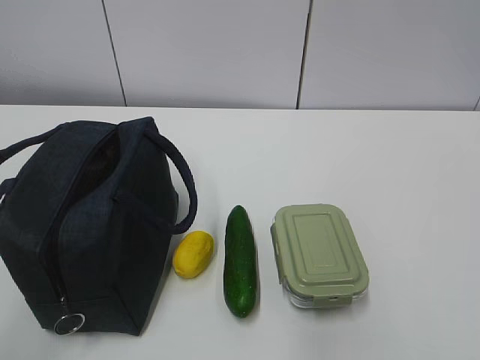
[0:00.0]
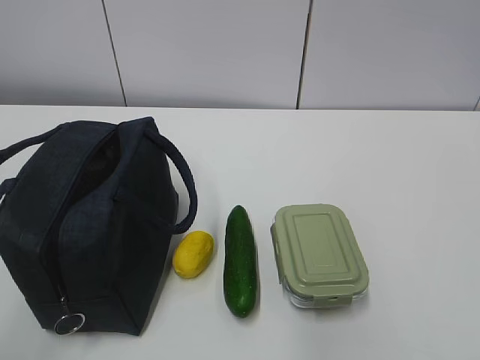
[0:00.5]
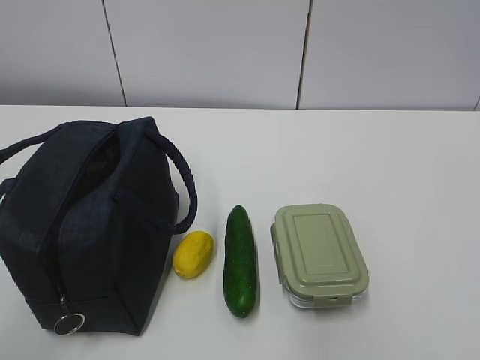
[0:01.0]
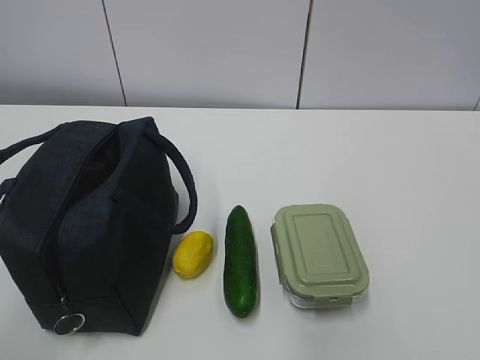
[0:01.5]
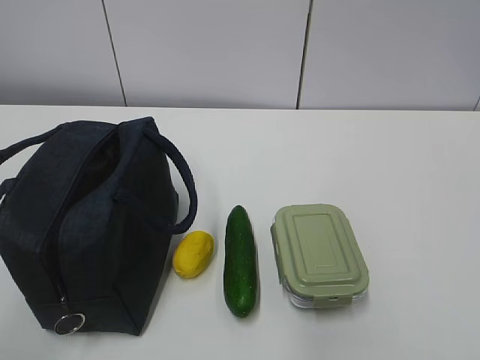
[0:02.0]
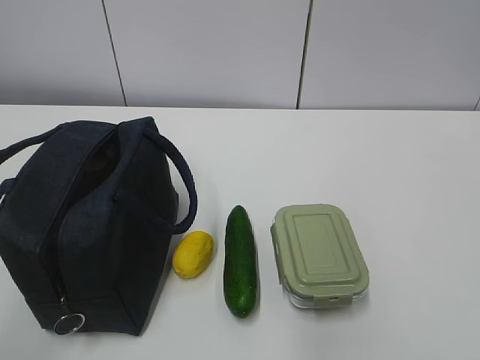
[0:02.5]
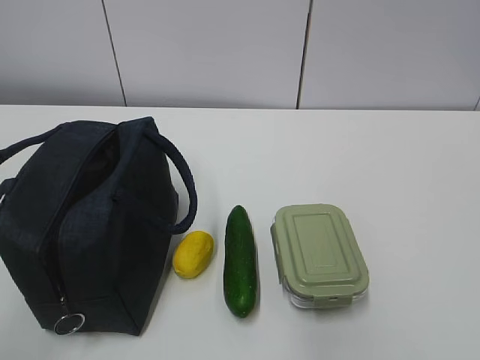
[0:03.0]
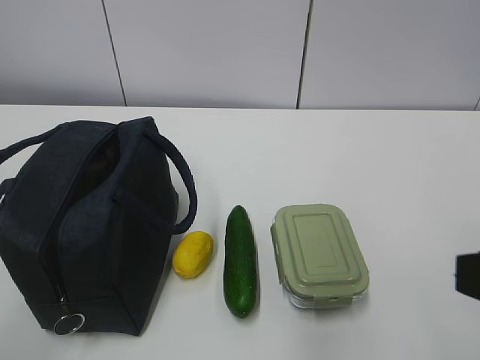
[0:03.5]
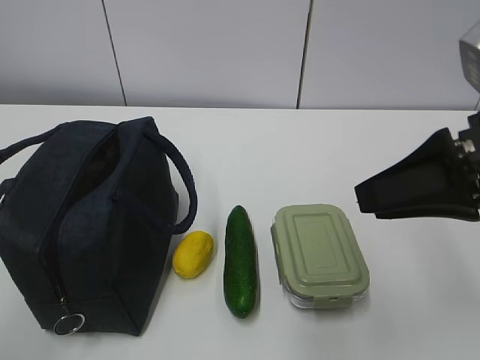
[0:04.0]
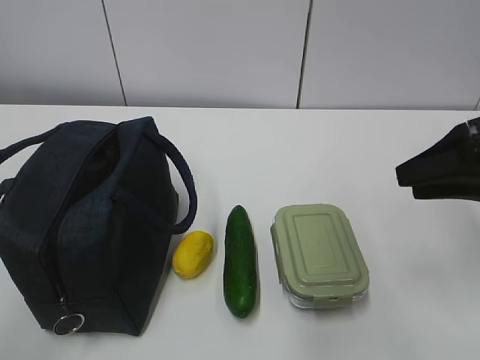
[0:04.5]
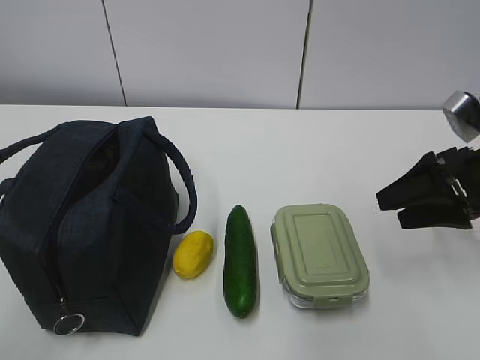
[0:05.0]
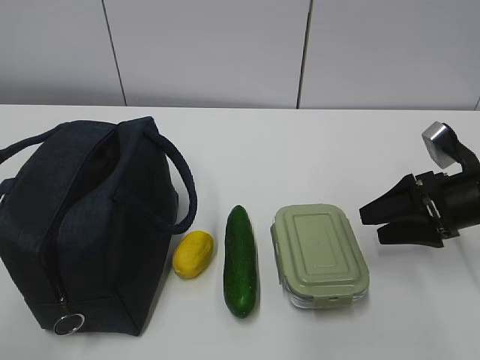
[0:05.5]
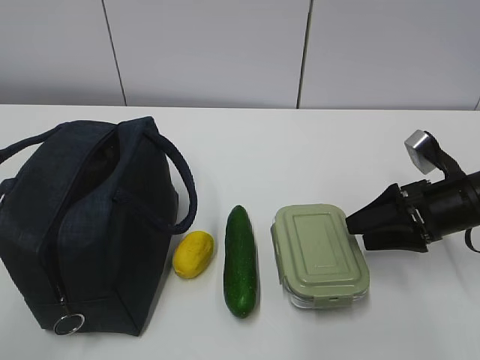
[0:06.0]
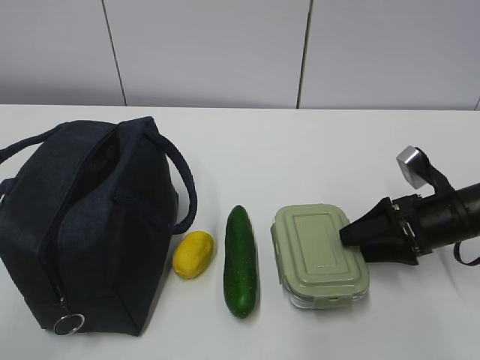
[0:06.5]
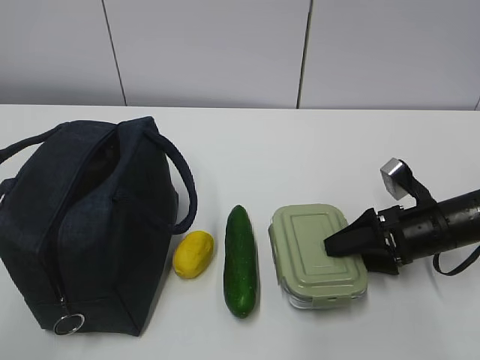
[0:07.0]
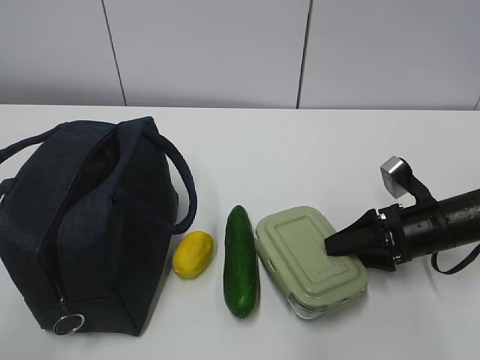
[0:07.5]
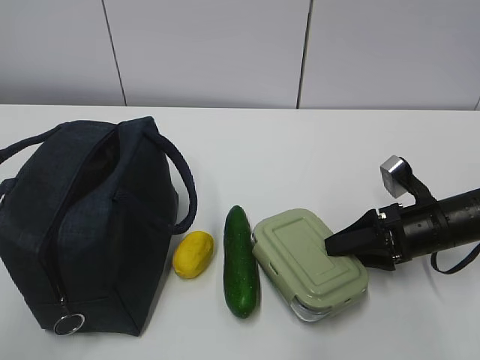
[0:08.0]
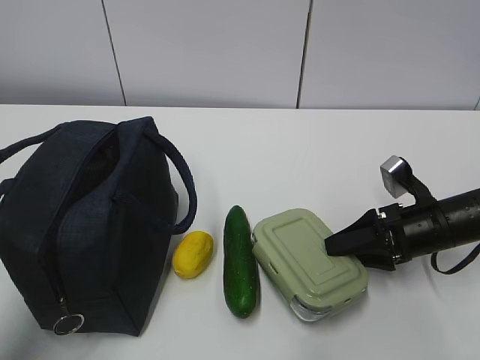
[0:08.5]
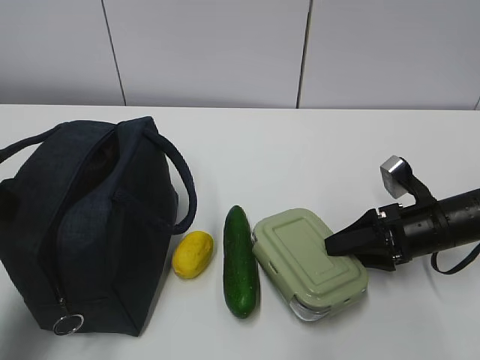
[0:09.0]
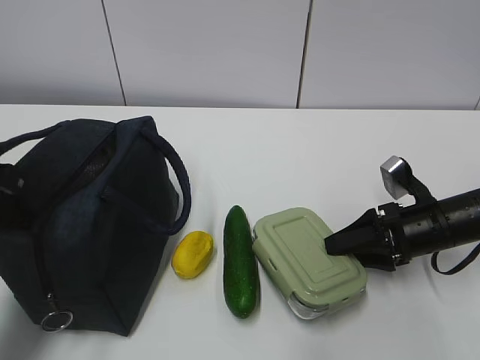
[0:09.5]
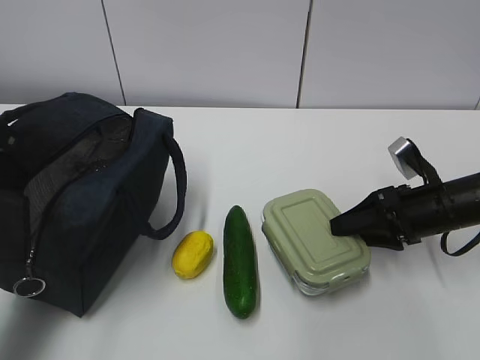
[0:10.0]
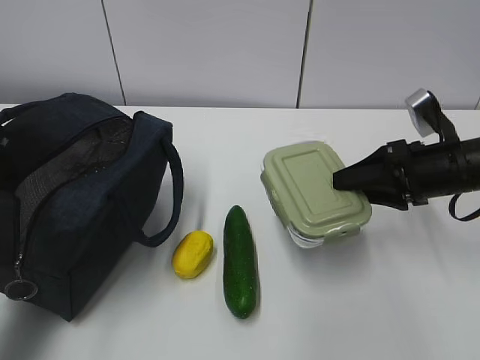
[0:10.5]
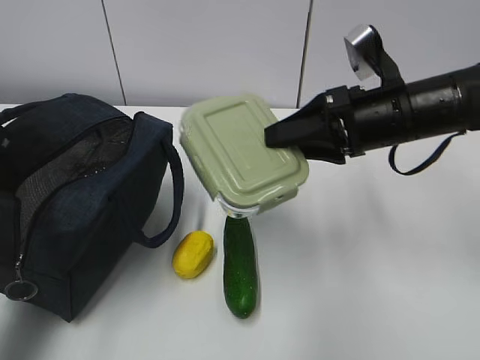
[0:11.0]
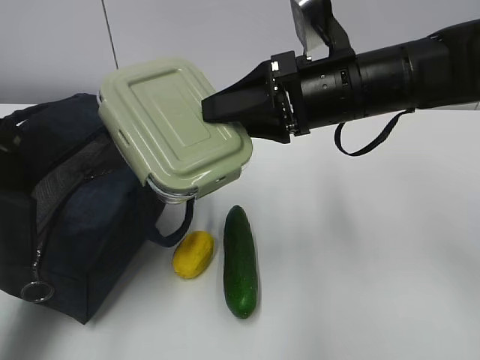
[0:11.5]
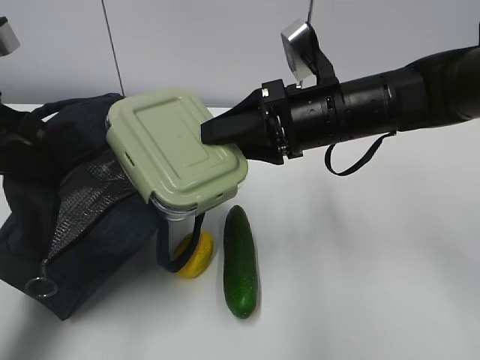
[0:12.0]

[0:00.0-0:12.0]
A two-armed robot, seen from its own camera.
Step, 0:00.0 to 0:08.0: Grab the lunch box with your right hand.
Step, 0:08.5 to 0:09.5: Grab the lunch bag with your left hand.
0:02.0 to 0:04.0: The right gripper moves forward, some 25 cm.
0:04.0 to 0:06.0: The right gripper is displaced downward, forward and to the right by about 20 cm, and opens up.
0:06.0 to 0:08.0: The right gripper moves some 5 cm.
0:08.0 to 0:10.0: The left gripper moves forward, about 25 cm, and closes up.
0:10.0 to 0:12.0: The right gripper heads to the left and upward, covering about 20 cm.

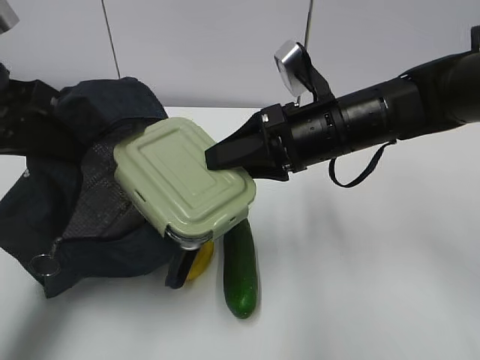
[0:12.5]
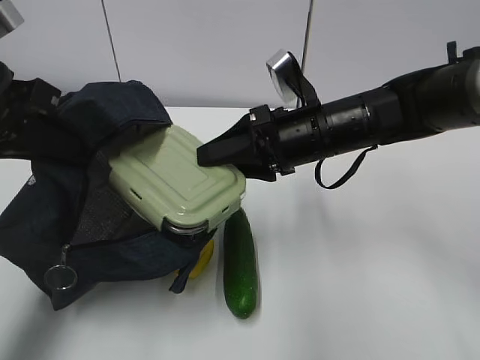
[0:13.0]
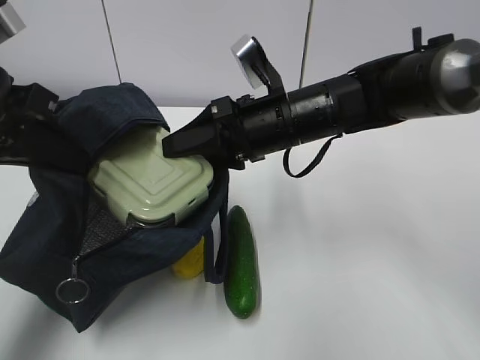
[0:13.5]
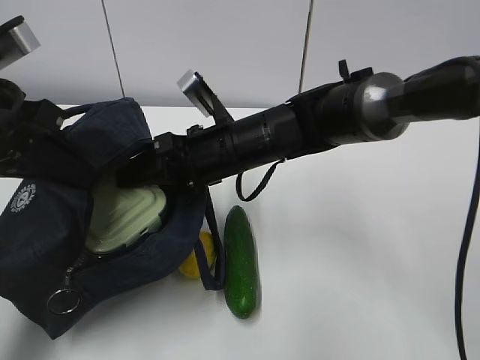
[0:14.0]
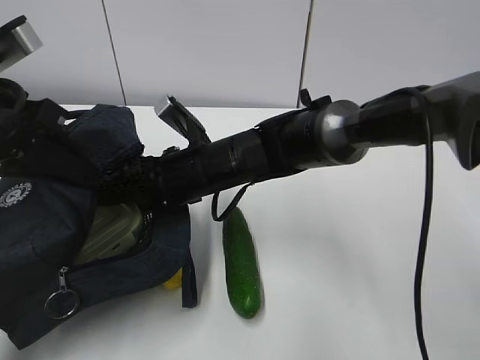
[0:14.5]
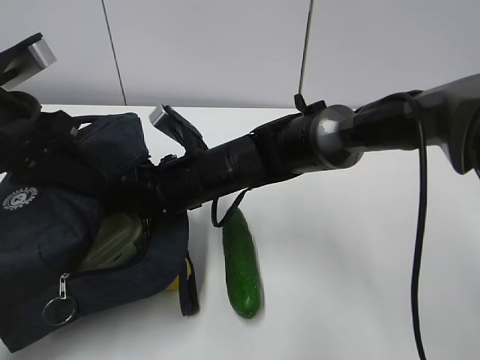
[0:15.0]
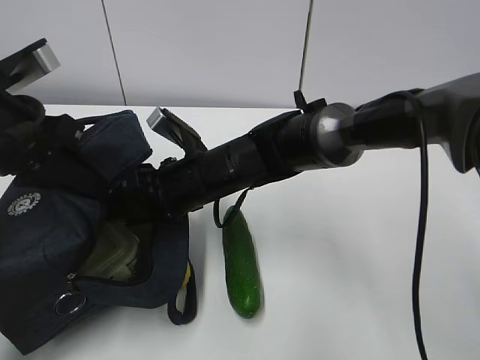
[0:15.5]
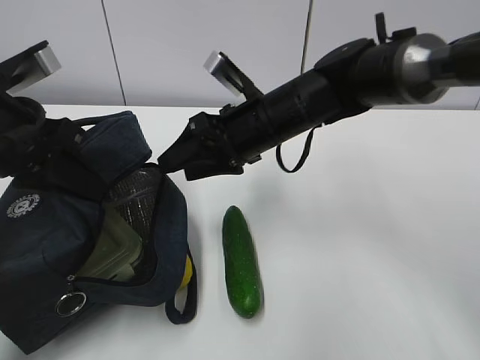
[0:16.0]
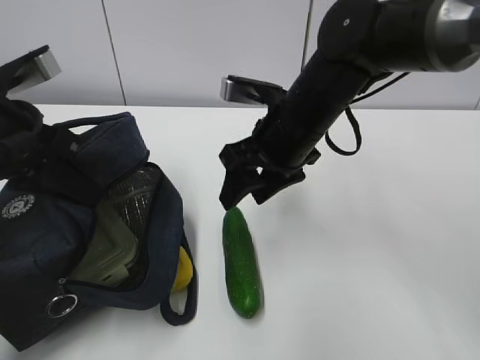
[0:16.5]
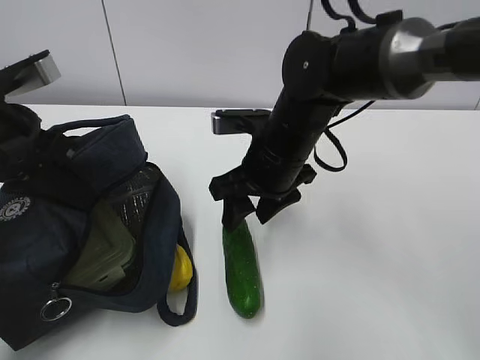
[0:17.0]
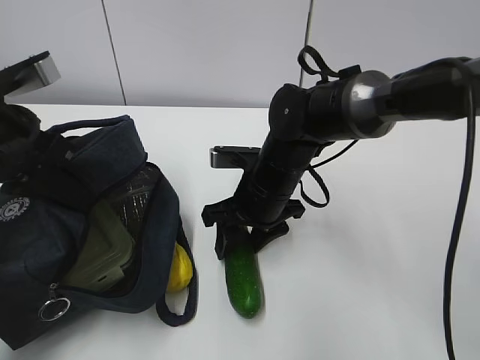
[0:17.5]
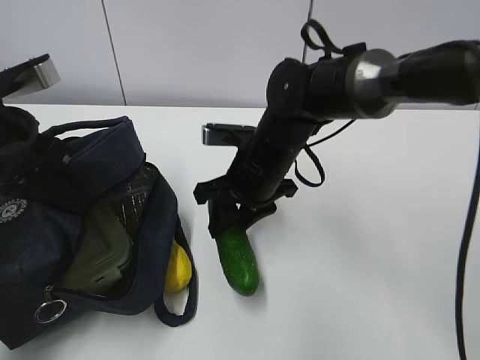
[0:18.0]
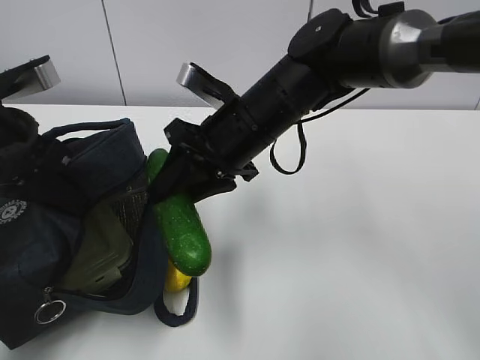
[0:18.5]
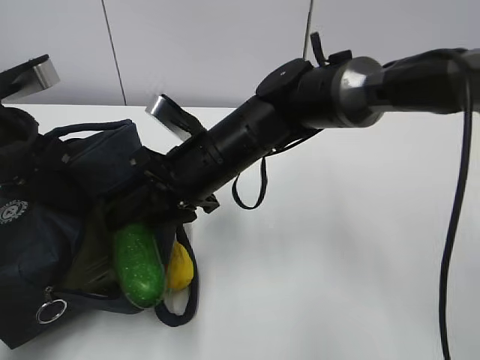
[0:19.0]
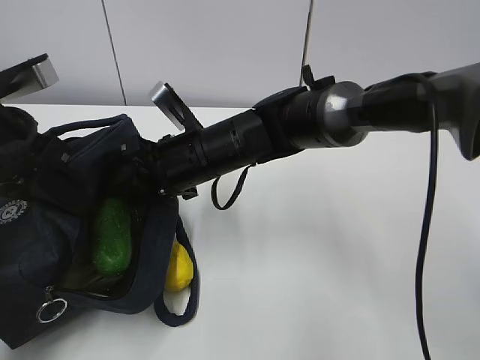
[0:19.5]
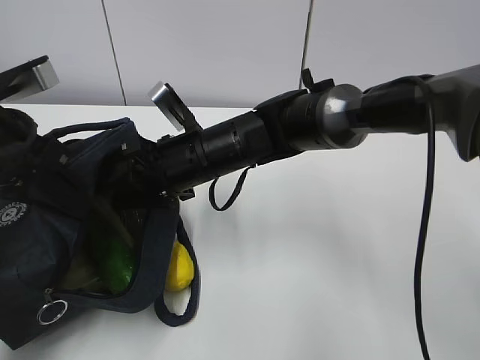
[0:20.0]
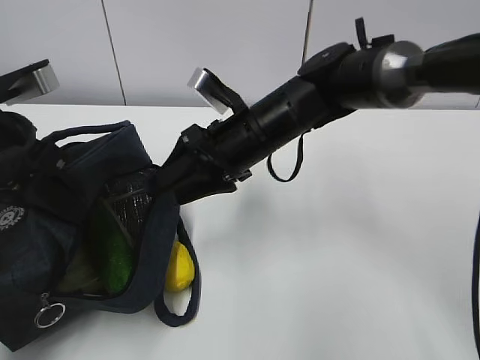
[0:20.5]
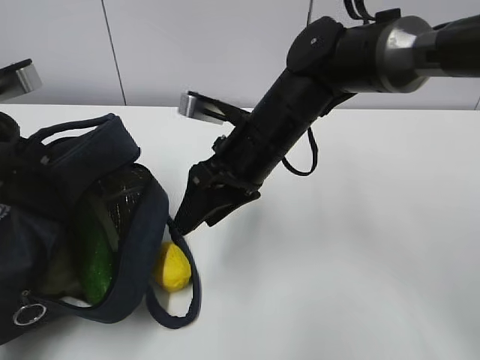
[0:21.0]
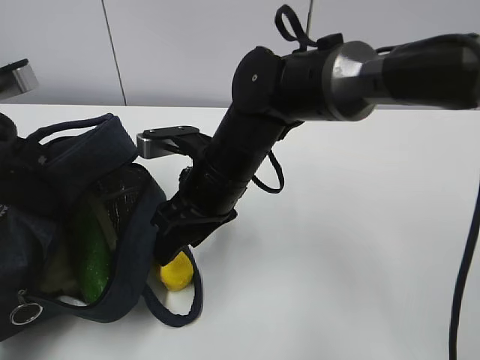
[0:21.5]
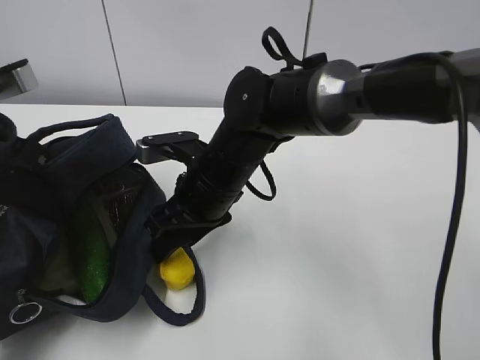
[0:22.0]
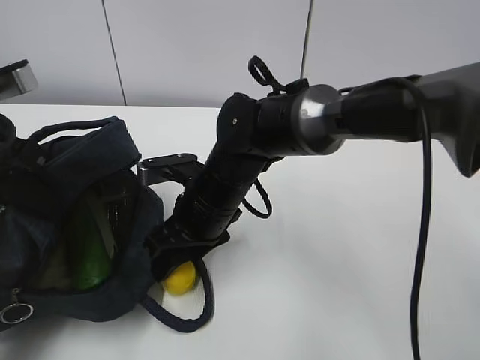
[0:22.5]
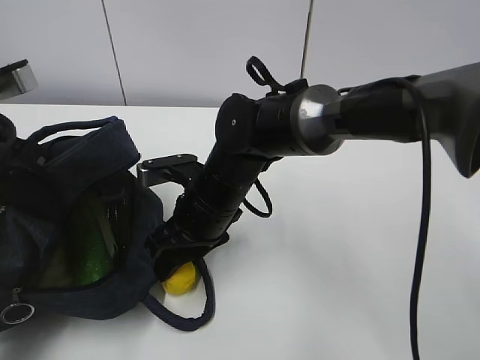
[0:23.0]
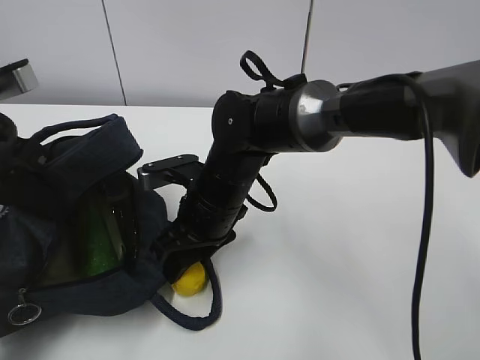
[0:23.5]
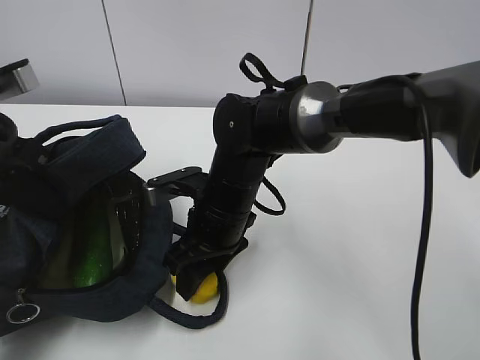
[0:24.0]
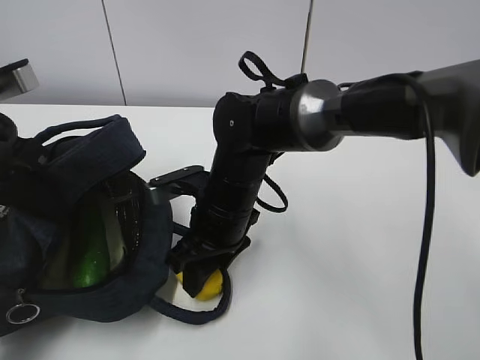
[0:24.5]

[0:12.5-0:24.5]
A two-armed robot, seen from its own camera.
Step, 0:13.0 to 0:14.5: Grab the cucumber with your right hand.
Step, 0:15.0 to 0:16.5: Place it into the bag with your right hand.
Step, 0:17.0 to 0:19.5: Grab the lemon with your right hand.
0:12.5 to 0:14.5: The right gripper shifts about 15 cm to the left and downward.
0:14.5 to 0:16.5: The right gripper travels to the right and upward by roughly 10 cm.
0:16.5 to 0:18.5: The right gripper goes downward and returns, some 10 cm each way.
0:20.5 to 0:22.5: The right gripper goes about 10 cm downward and to the left.
0:22.5 to 0:24.5: The grippers move only a little.

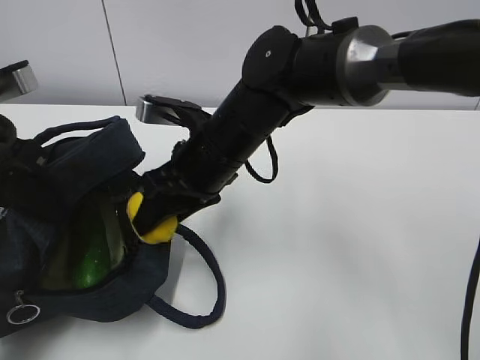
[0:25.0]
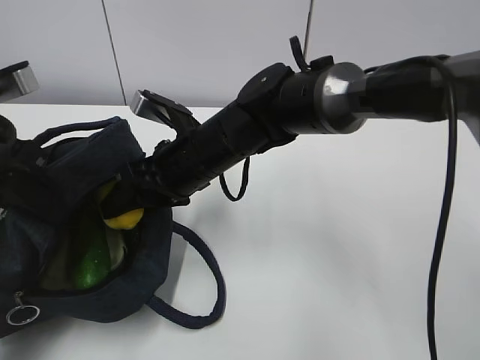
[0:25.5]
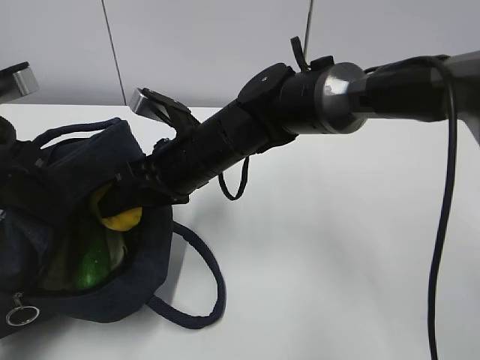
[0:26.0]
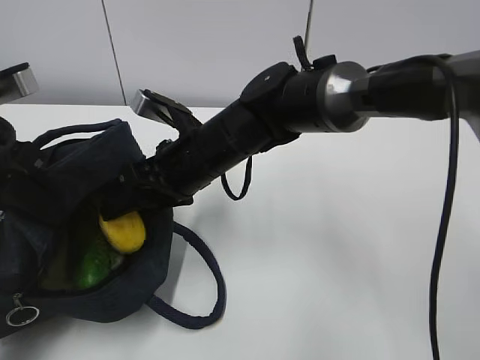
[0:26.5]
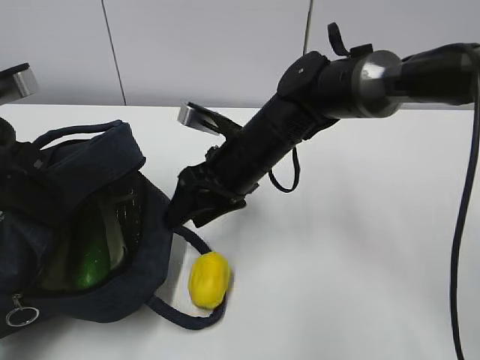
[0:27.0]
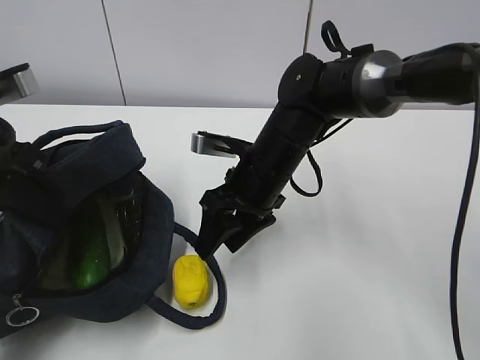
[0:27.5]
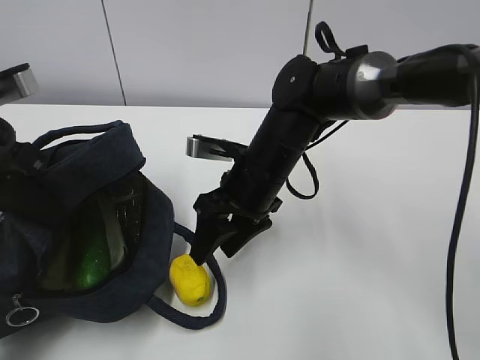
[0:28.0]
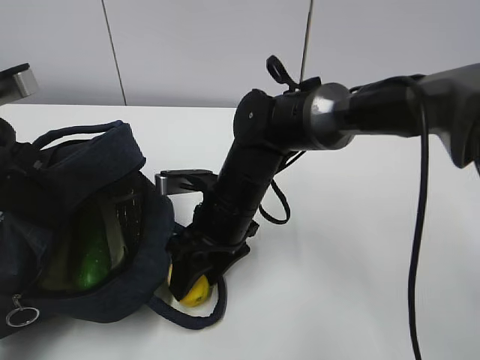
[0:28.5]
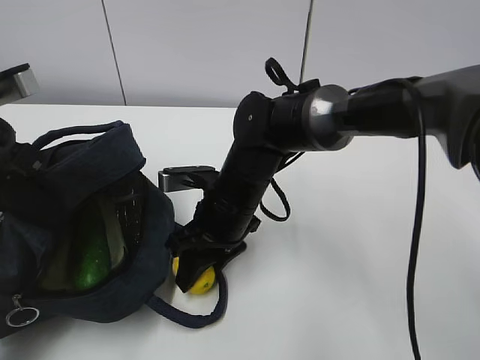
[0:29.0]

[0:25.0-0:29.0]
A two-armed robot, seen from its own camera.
Step, 0:26.0 to 0:26.5: Grab the lunch bag with your right hand.
0:25.0 to 0:27.0: The right gripper ends up roughly 5 cm from where it was.
0:27.0 to 0:29.0: The right gripper shifts by some 5 cm.
